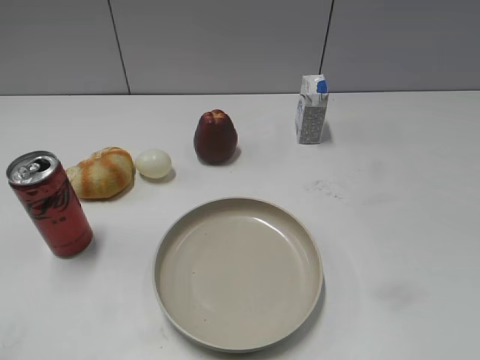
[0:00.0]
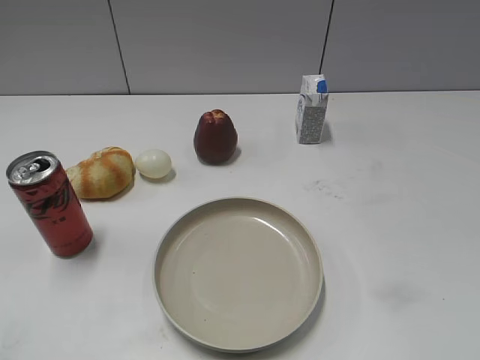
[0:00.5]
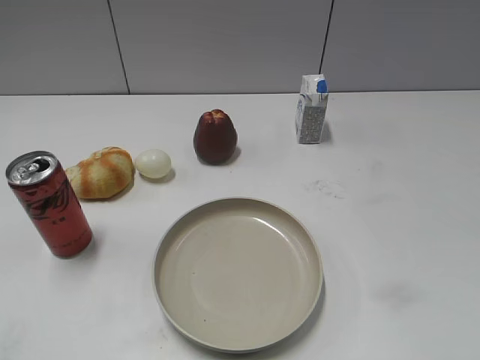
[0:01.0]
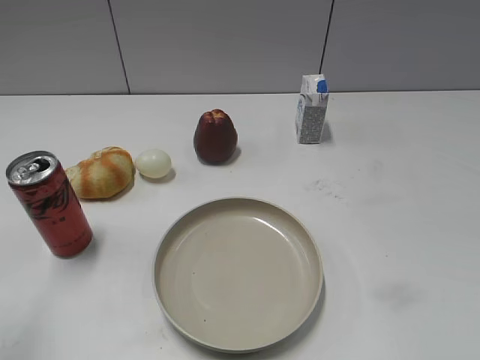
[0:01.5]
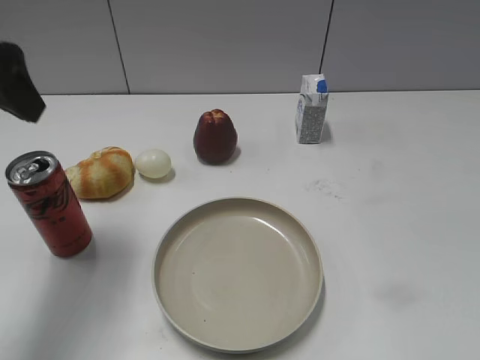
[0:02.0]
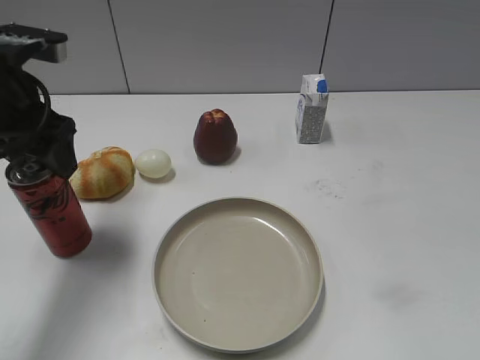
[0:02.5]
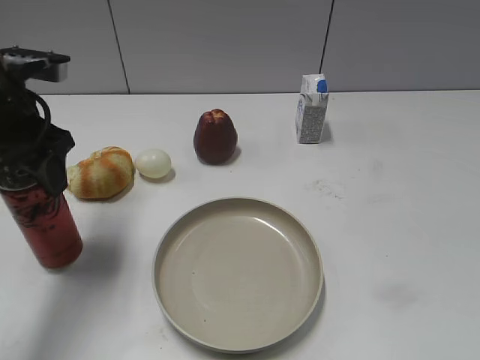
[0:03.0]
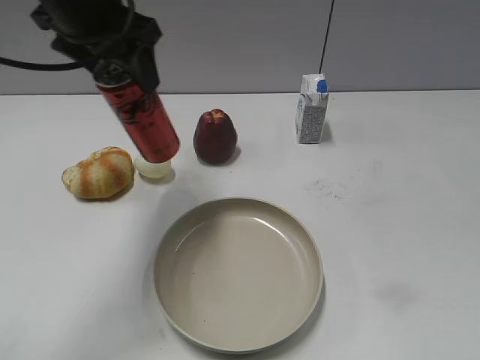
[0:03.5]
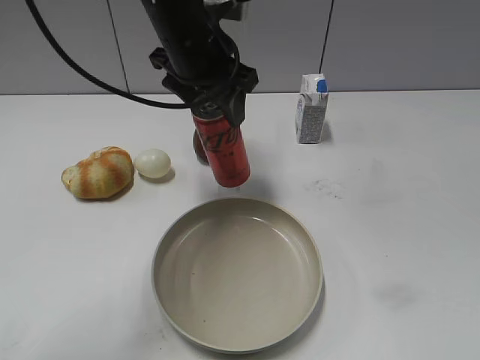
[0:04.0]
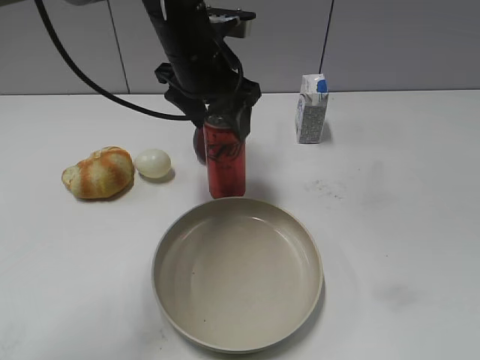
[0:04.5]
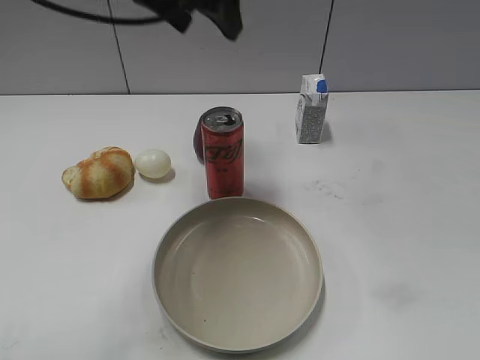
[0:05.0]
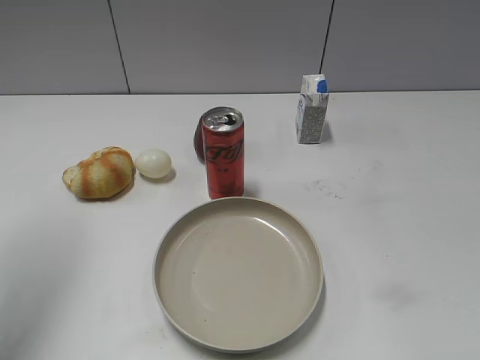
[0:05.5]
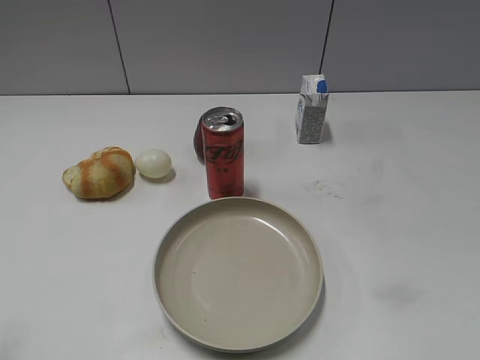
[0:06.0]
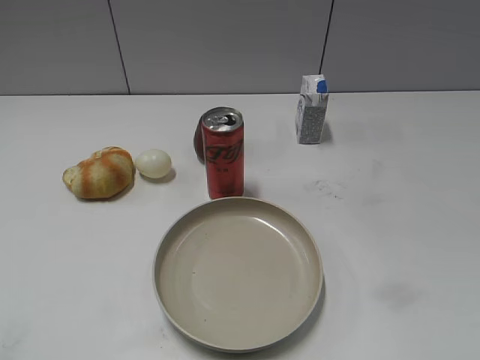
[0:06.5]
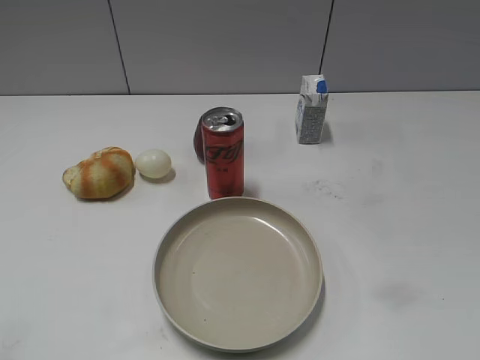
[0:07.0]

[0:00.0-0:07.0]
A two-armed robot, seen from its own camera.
Step, 0:01.0 to 0:02.5: Grasp the cola with left gripper.
Step, 0:03.5 to 0:04.5: Place the cola on the table with left gripper.
0:02.0 to 0:03.5: The left gripper shifts roughly 15 cm to the right and forward, and closes its fingers.
0:03.5 to 0:05.0: The left gripper goes approximately 10 cm upward, and opens.
0:05.0 to 0:07.0: The left gripper travels backward and to the left by some 40 cm, and closes up.
